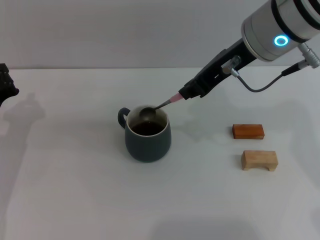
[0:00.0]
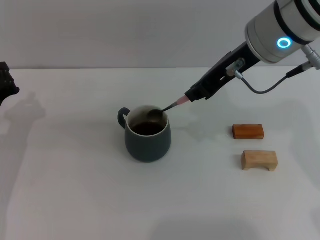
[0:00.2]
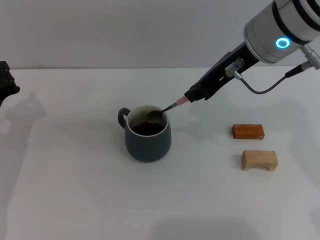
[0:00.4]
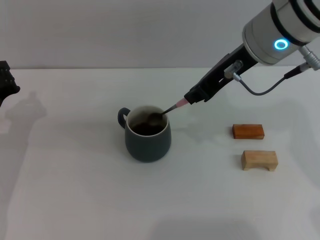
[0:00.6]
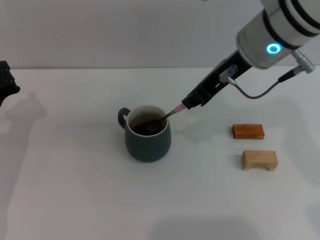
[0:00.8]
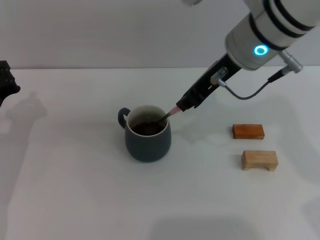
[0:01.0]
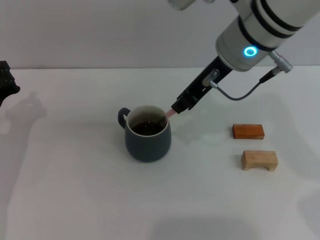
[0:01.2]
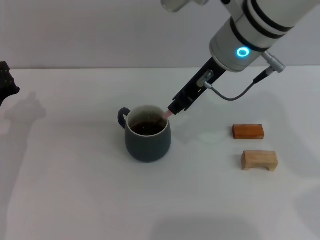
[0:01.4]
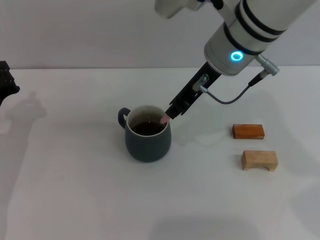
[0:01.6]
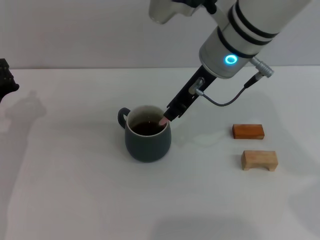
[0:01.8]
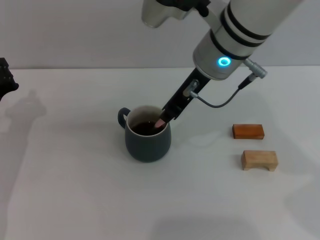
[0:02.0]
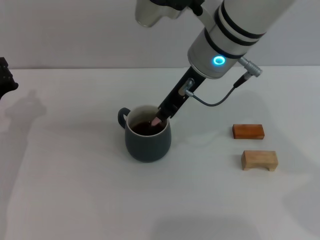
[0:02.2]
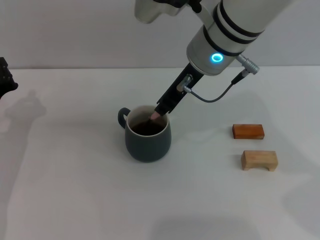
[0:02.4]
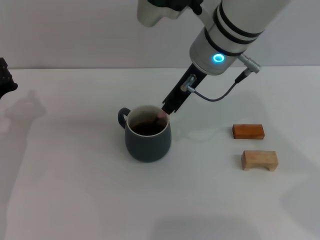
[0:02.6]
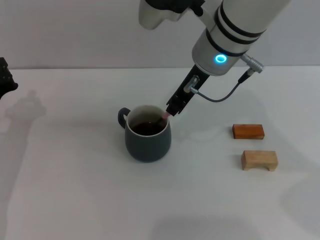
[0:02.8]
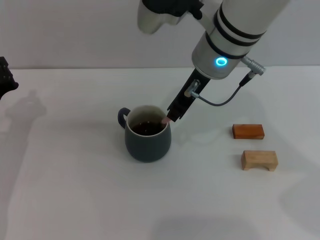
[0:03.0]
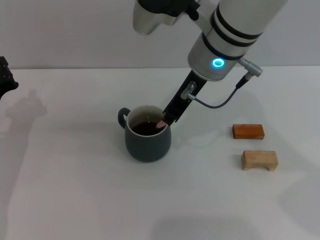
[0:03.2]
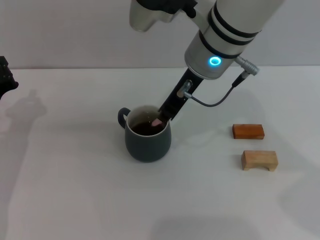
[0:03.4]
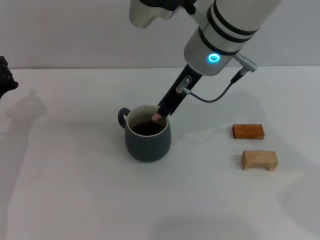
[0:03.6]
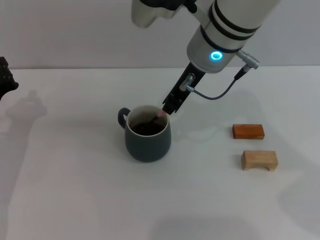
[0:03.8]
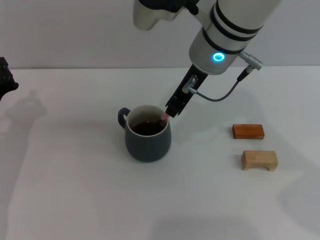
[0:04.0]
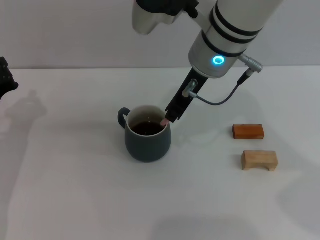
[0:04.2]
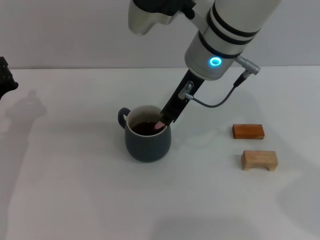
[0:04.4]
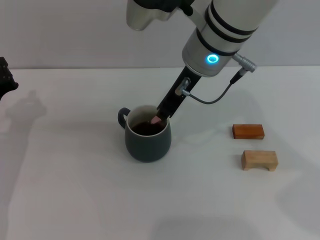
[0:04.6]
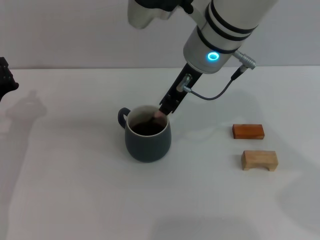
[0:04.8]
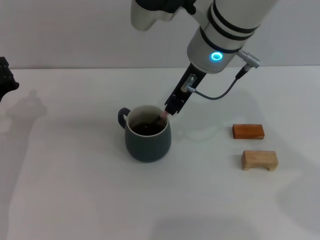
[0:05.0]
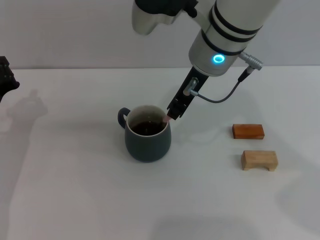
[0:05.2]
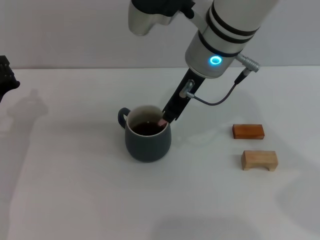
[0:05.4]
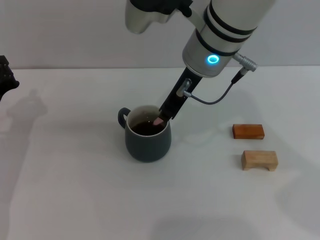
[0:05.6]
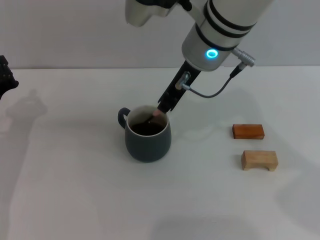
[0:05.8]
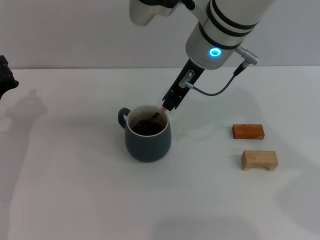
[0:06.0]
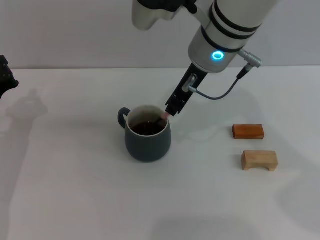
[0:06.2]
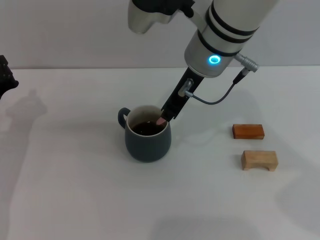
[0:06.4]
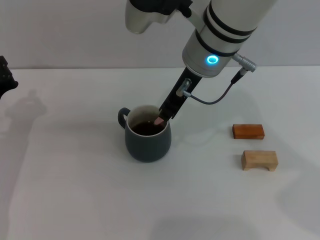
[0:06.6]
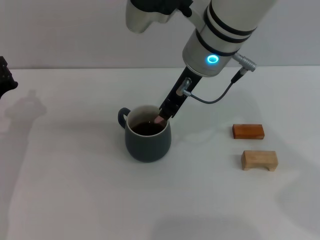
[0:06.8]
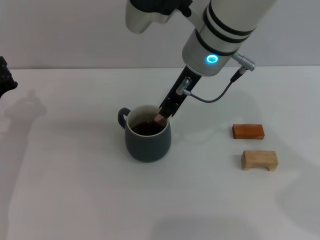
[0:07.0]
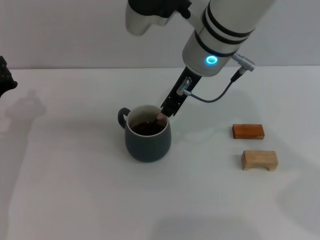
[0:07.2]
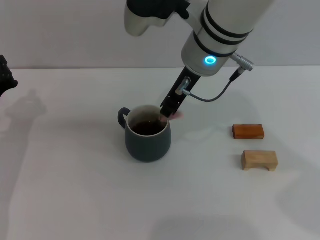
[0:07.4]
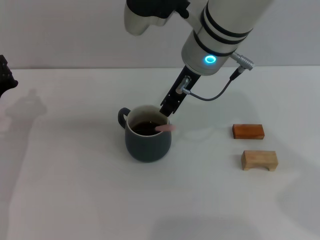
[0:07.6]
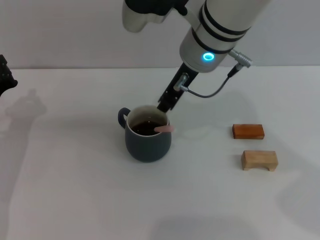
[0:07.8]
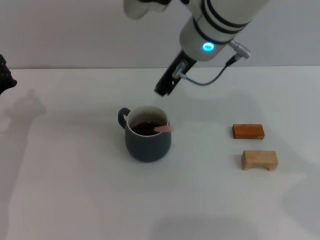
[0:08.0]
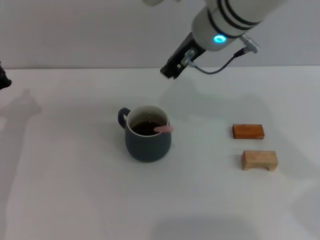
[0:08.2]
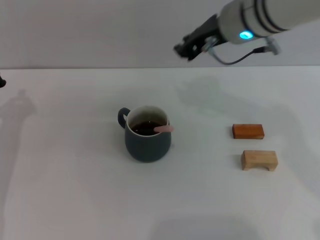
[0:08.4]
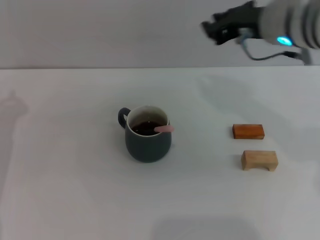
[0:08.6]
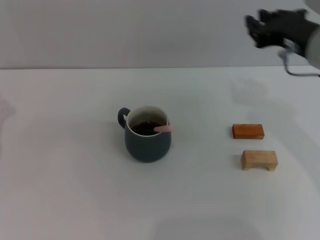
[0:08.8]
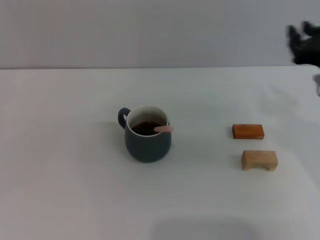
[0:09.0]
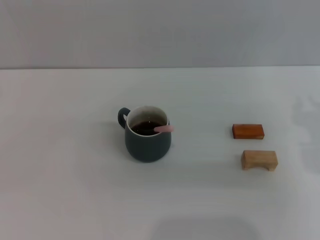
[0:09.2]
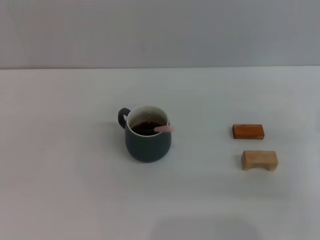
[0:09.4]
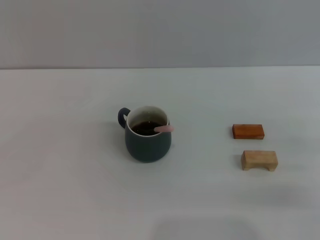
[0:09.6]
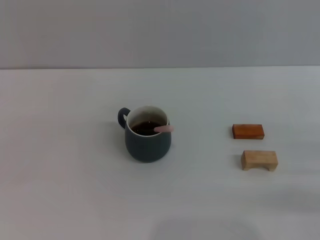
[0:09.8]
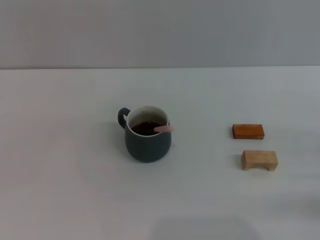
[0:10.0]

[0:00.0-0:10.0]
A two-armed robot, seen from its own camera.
Task of the whole recording: Move the grey cup to the center, lift the pink spoon, stir it three times in the cup, and put the spoon into the cup.
Step, 0:00.0 to 0:07.8: Stir the coffee in the cup with the right gripper.
0:00.0 to 0:01.4: The right gripper changes place by about 5 cm.
0:01.4 to 0:02.8: The grippers move only a little.
0:02.8 to 0:04.2: The two grippers keep their place.
0:04.2 to 0:07.2: The two grippers keep their place.
0:07.2 to 0:08.6: The right gripper is displaced to the right by about 10 cm.
0:08.6 to 0:10.0: The right gripper goes approximately 30 cm to the right, downward and backward.

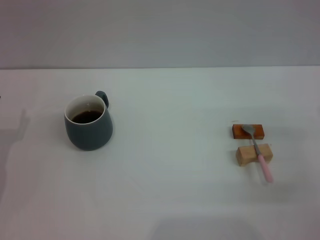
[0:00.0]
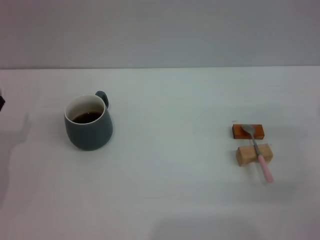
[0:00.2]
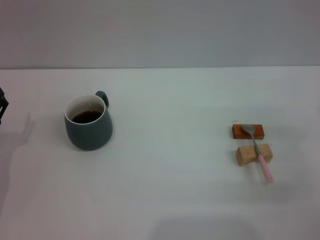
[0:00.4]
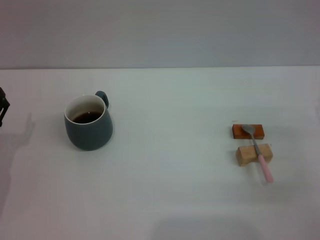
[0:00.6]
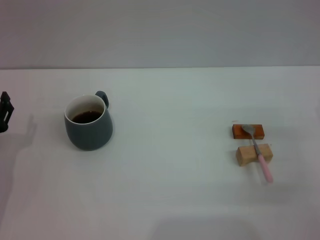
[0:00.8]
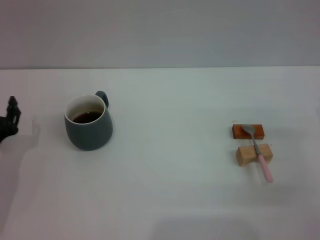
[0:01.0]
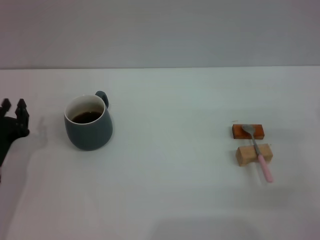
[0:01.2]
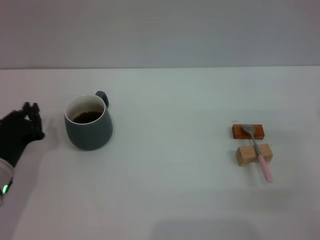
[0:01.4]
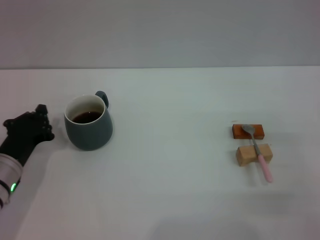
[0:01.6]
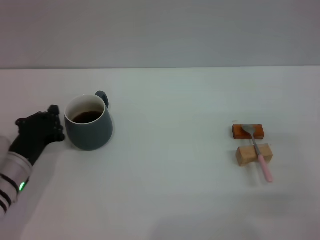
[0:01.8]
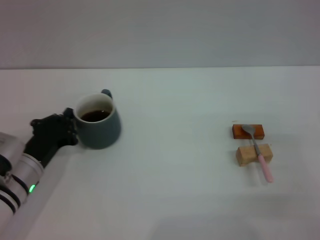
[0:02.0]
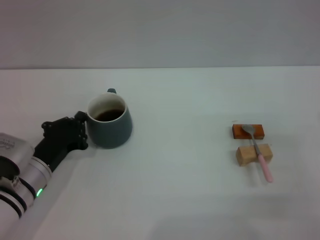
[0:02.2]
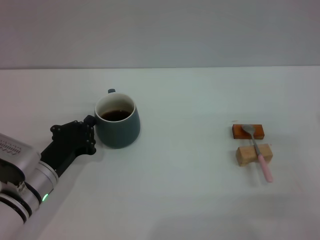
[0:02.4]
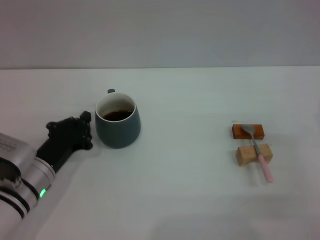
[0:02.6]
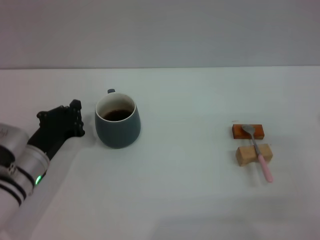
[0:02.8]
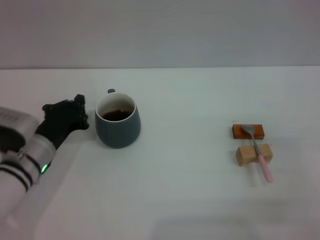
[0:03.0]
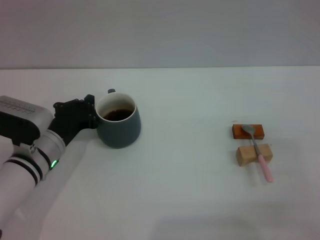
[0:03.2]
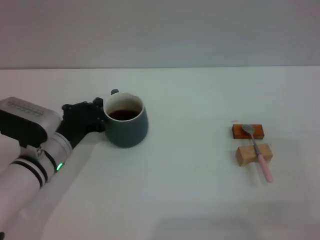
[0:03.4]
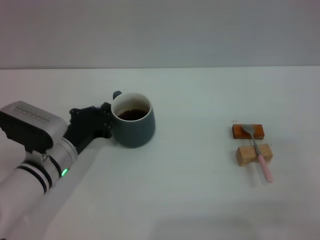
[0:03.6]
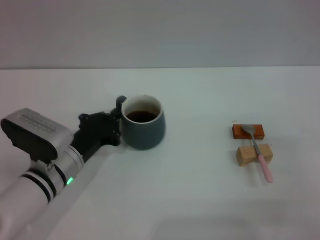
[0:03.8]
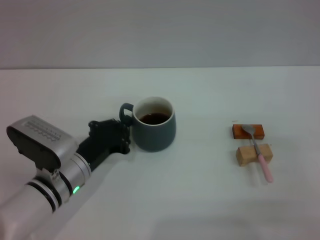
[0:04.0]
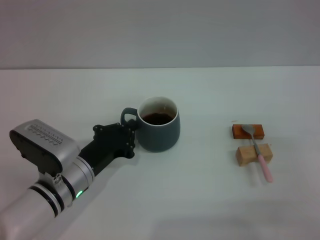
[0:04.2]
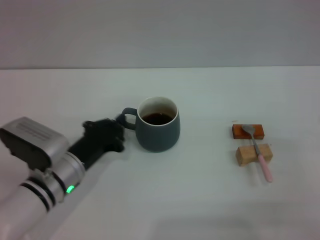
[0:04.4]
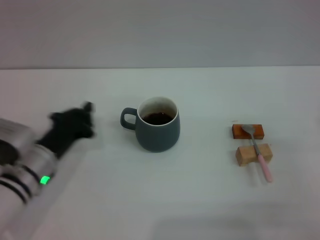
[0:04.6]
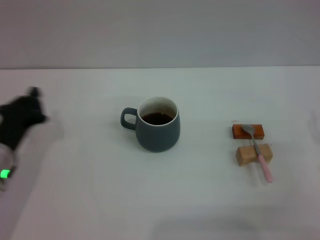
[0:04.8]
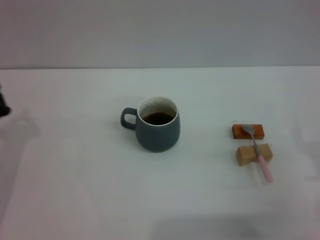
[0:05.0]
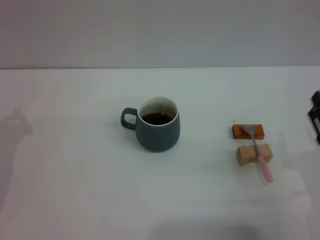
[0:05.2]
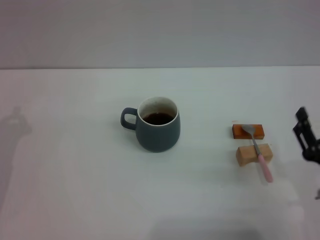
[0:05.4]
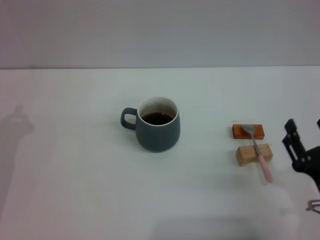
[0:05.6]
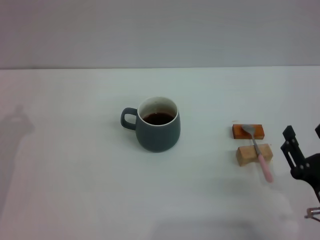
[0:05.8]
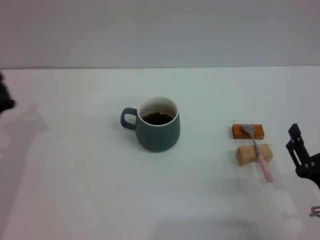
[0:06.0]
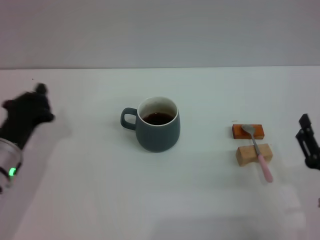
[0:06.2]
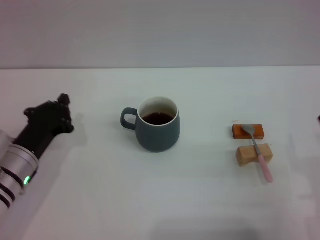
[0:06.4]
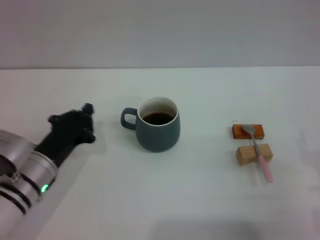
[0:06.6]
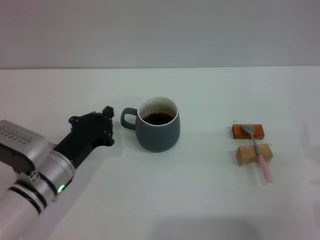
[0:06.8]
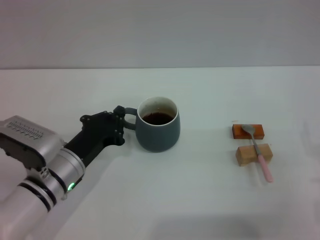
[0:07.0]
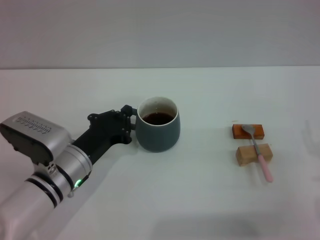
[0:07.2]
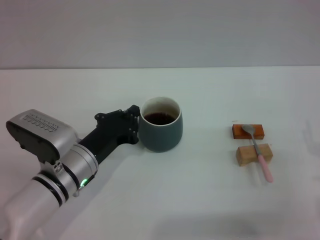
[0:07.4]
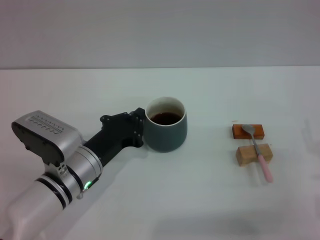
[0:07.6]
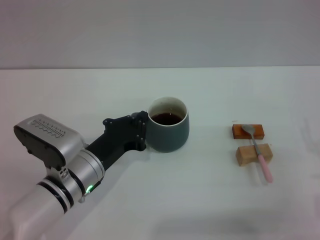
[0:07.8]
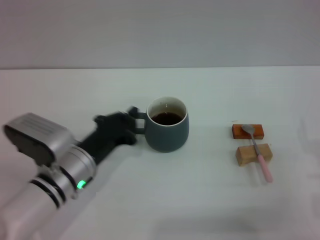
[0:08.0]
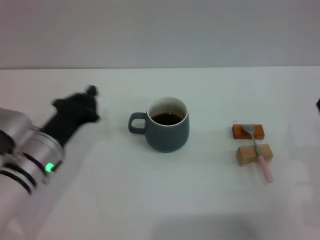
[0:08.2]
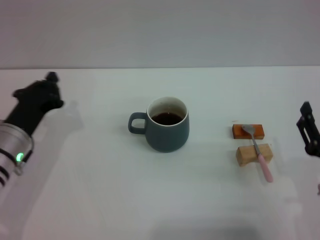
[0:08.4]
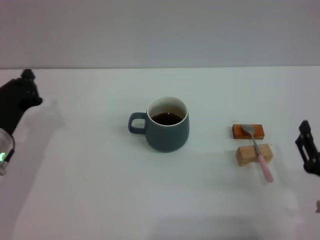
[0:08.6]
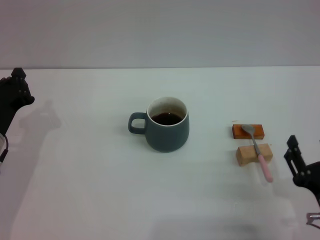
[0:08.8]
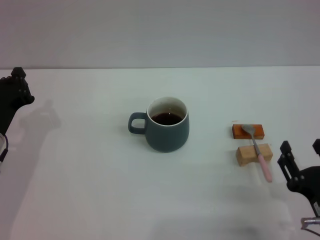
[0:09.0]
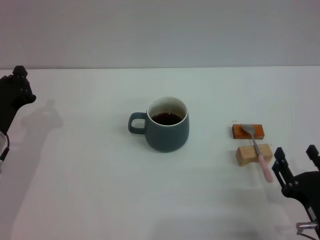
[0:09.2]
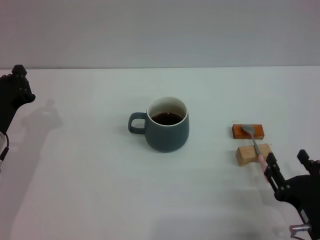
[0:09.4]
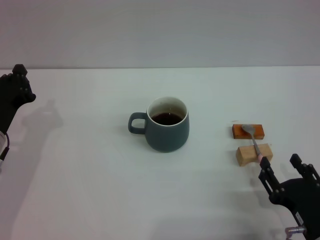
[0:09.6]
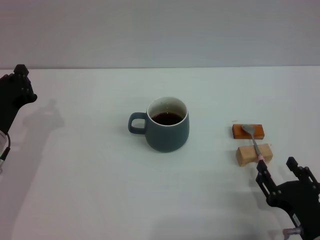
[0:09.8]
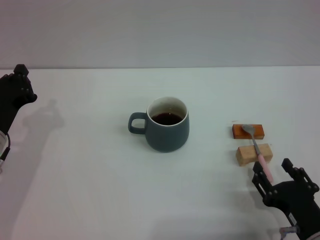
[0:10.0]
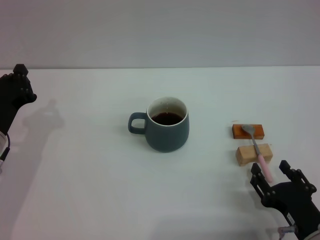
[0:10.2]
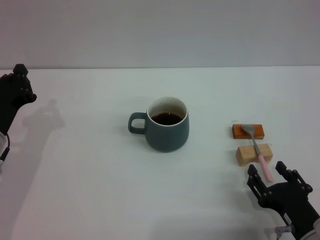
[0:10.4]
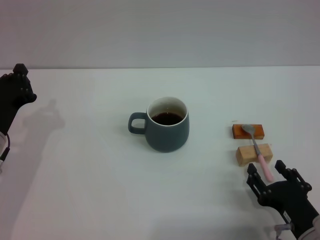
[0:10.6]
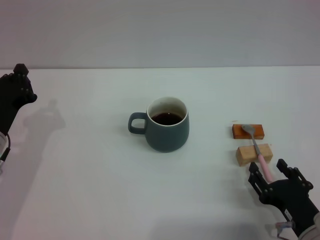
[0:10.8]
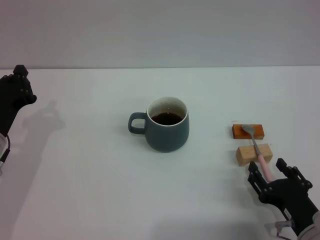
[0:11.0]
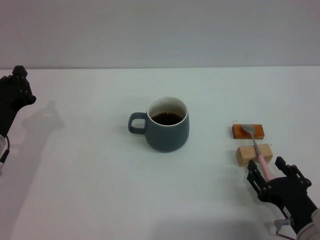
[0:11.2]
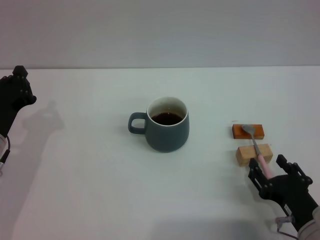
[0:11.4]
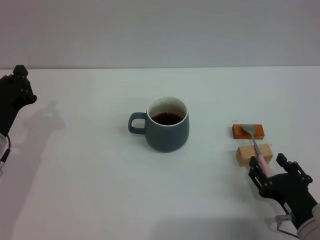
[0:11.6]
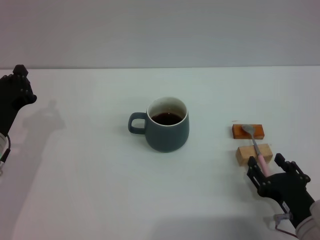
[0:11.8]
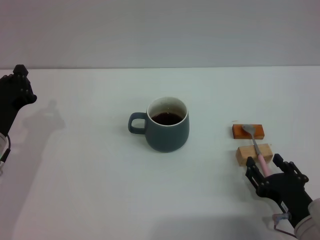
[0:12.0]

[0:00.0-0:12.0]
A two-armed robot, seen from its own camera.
Task of the whole recording: Move the grey cup to the center, lift the pink spoon, stir it three times in the cup, and put the spoon into the cup.
Step, 0:00.0 to 0:05.4: Move the cup with coffee to the center of view with the left gripper.
0:00.0 to 0:01.6: The left gripper moves to the right, approximately 5 cm, and closes.
0:01.6 to 0:03.0: The left gripper moves about 5 cm.
0:03.0 to 0:04.4: The left gripper changes place by approximately 5 cm.
0:04.4 to 0:06.0: The right gripper moves to the left, backward and downward, approximately 10 cm. The left gripper shifts about 10 cm to the left.
0:06.0 to 0:07.6: The left gripper goes roughly 15 cm to the right; the right gripper moves forward, approximately 5 cm.
0:07.6 to 0:09.0: The right gripper shifts about 10 cm backward and to the left; the left gripper is displaced to the left by approximately 10 cm.
0:09.0 to 0:12.0: The grippers stay close to where they were, moving slightly.
